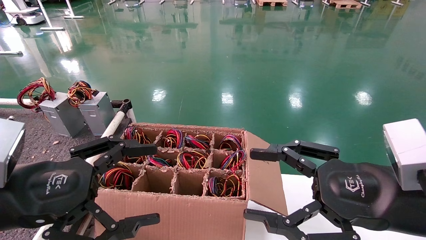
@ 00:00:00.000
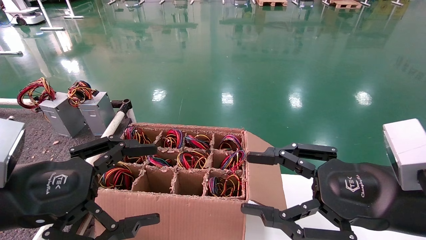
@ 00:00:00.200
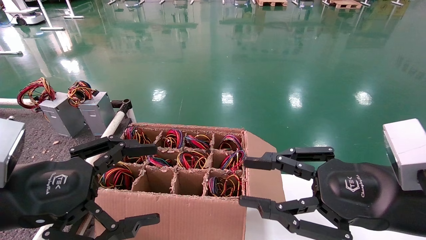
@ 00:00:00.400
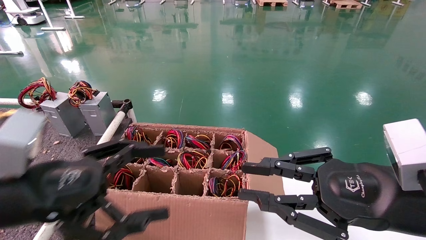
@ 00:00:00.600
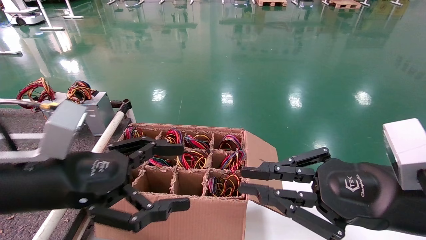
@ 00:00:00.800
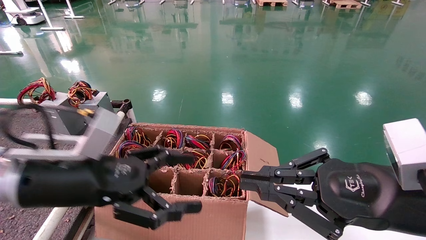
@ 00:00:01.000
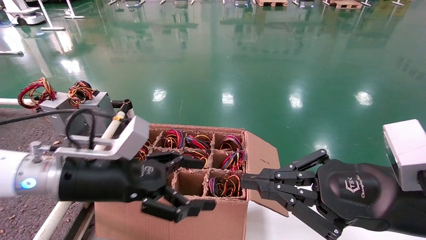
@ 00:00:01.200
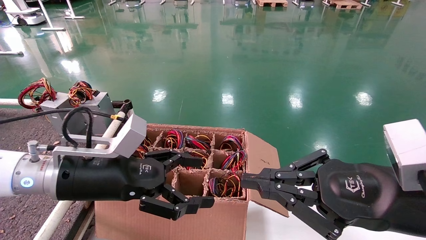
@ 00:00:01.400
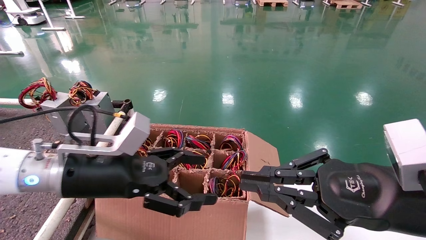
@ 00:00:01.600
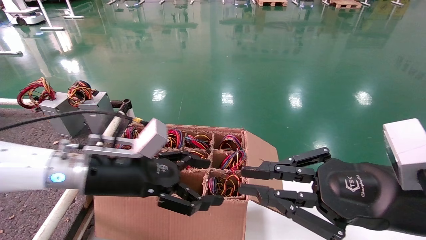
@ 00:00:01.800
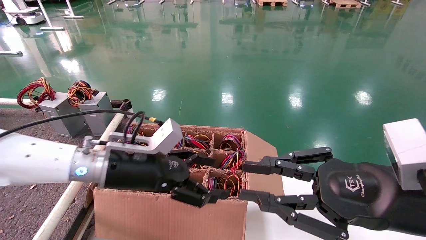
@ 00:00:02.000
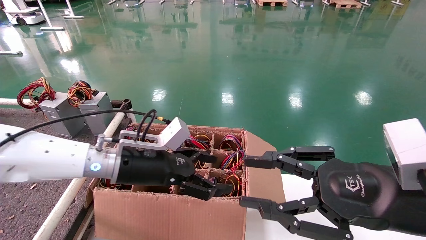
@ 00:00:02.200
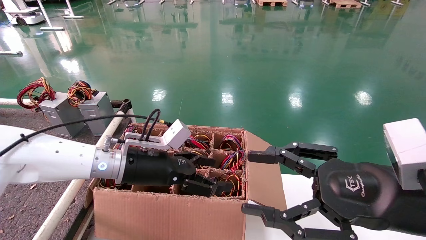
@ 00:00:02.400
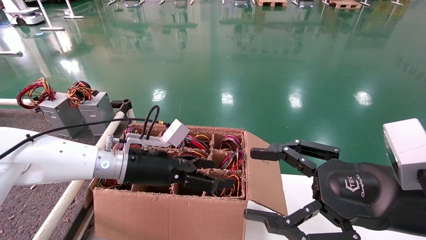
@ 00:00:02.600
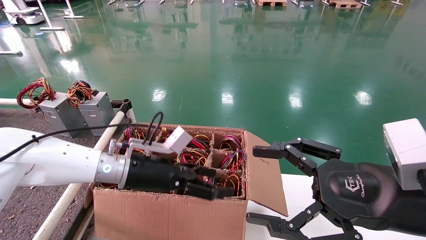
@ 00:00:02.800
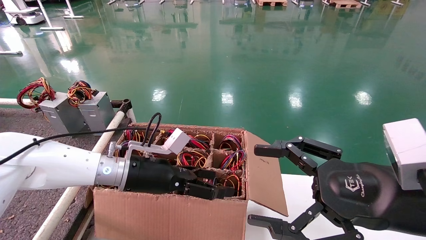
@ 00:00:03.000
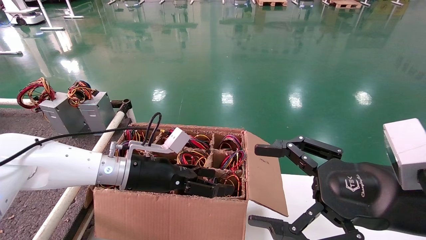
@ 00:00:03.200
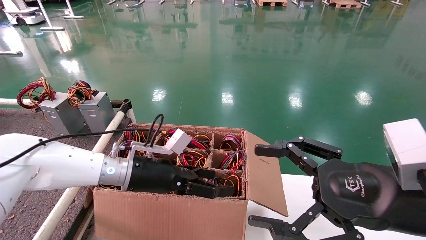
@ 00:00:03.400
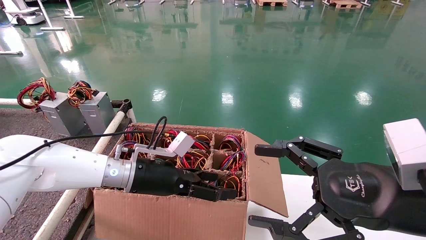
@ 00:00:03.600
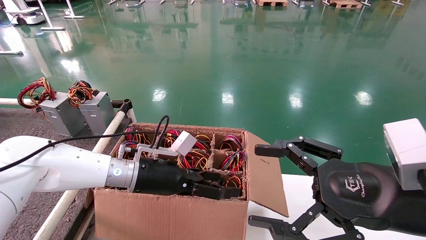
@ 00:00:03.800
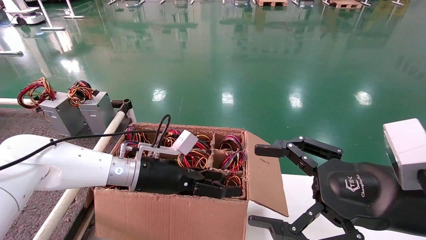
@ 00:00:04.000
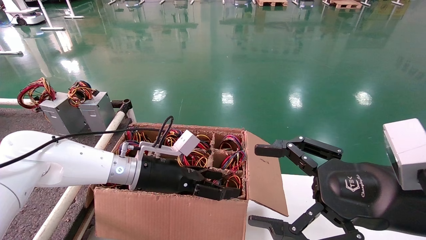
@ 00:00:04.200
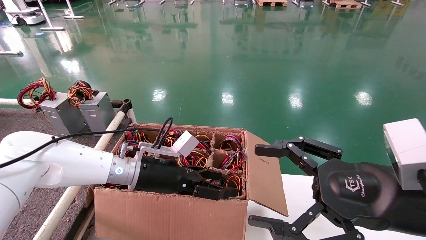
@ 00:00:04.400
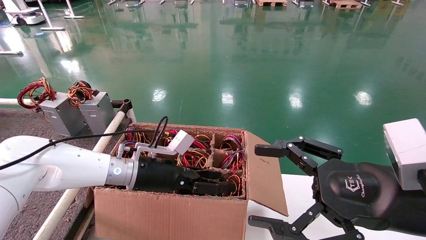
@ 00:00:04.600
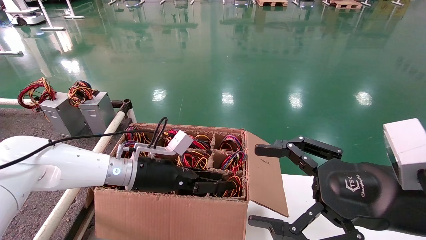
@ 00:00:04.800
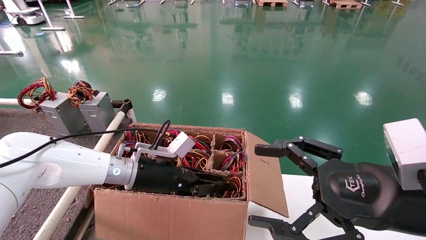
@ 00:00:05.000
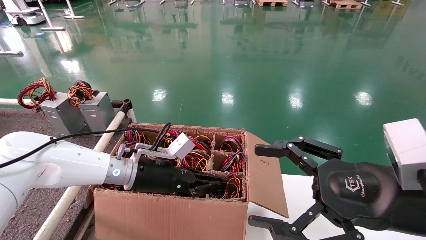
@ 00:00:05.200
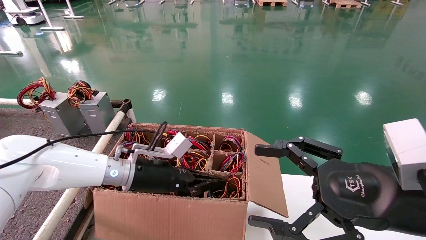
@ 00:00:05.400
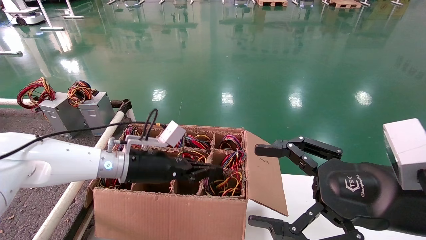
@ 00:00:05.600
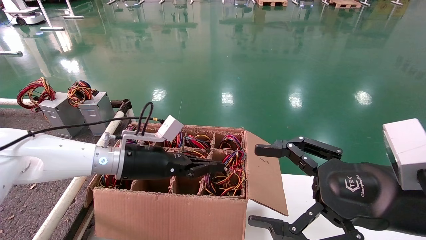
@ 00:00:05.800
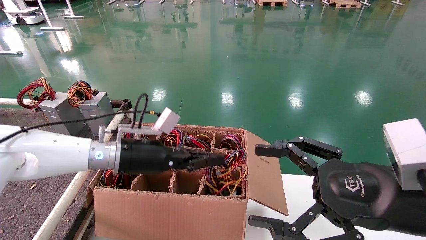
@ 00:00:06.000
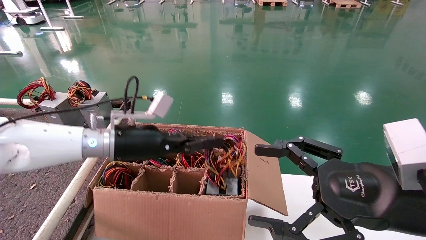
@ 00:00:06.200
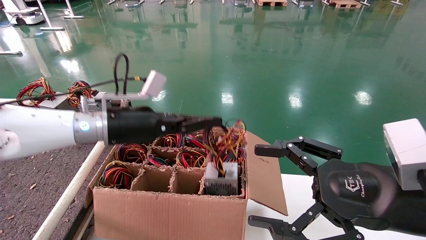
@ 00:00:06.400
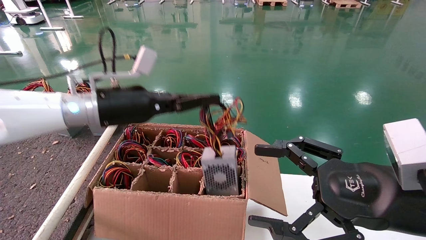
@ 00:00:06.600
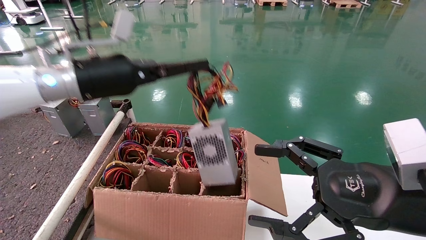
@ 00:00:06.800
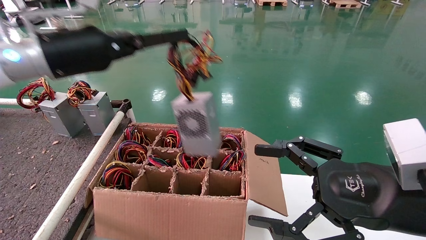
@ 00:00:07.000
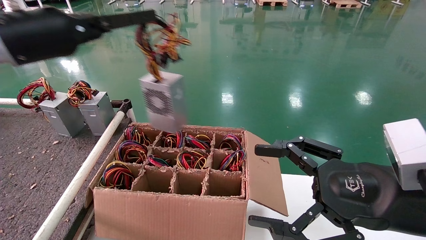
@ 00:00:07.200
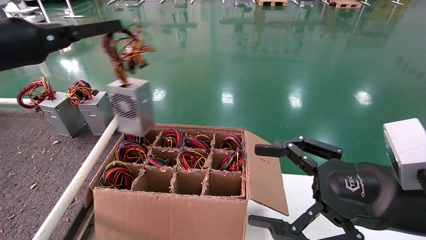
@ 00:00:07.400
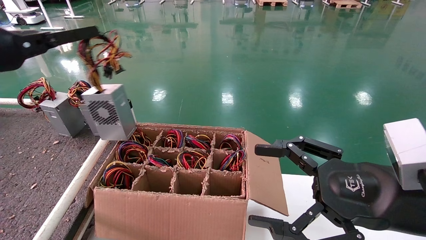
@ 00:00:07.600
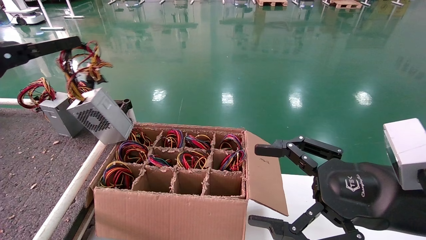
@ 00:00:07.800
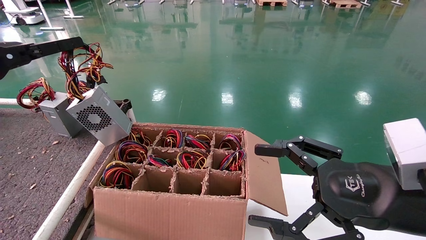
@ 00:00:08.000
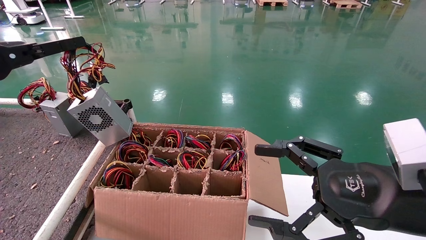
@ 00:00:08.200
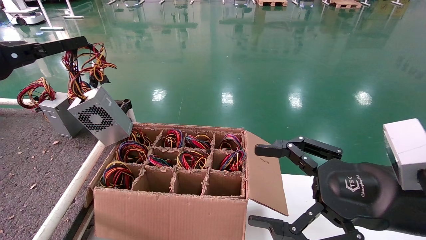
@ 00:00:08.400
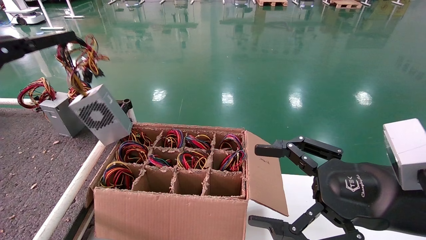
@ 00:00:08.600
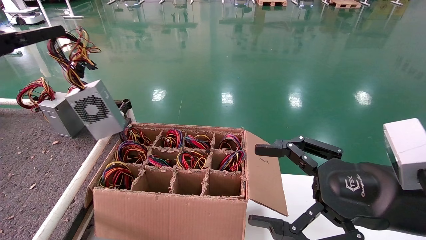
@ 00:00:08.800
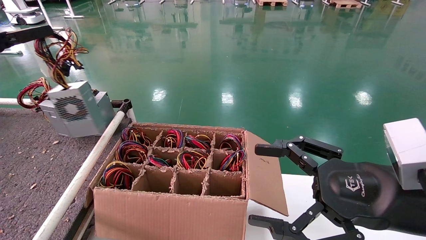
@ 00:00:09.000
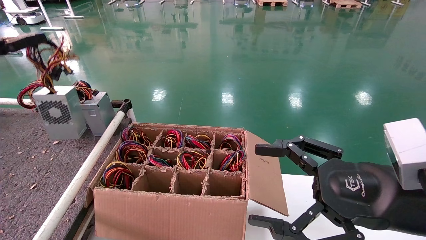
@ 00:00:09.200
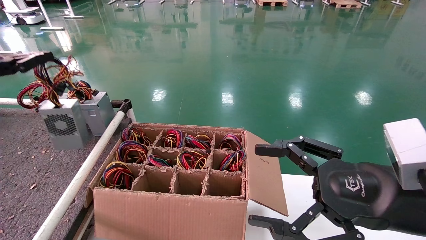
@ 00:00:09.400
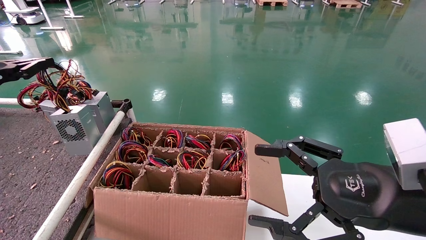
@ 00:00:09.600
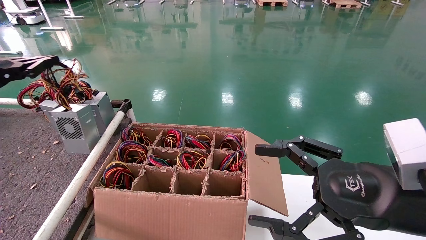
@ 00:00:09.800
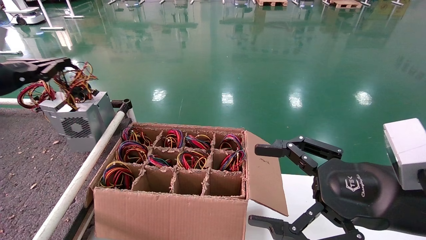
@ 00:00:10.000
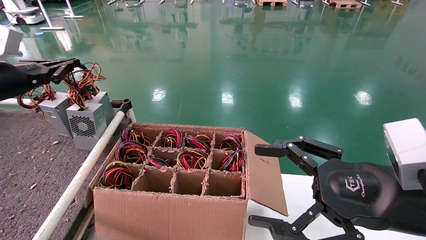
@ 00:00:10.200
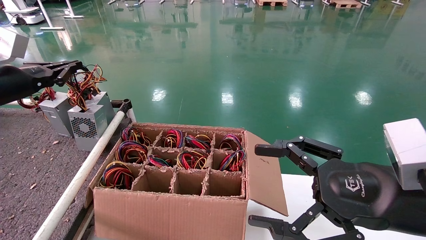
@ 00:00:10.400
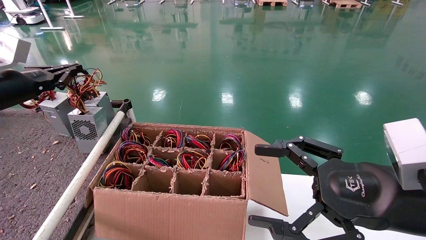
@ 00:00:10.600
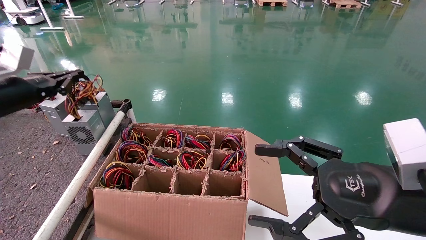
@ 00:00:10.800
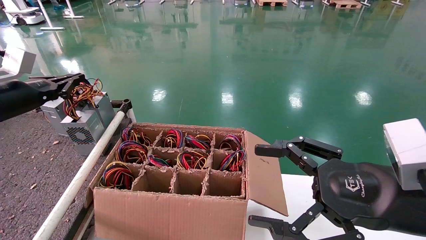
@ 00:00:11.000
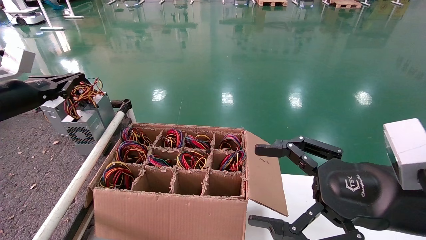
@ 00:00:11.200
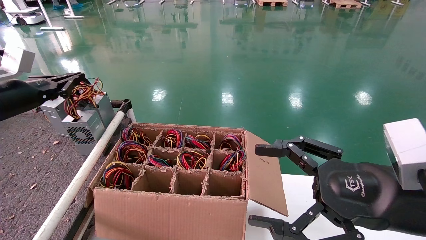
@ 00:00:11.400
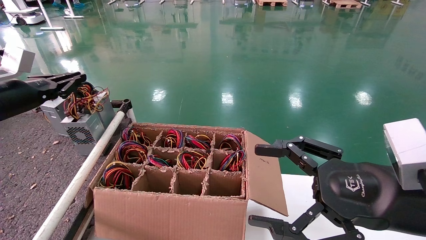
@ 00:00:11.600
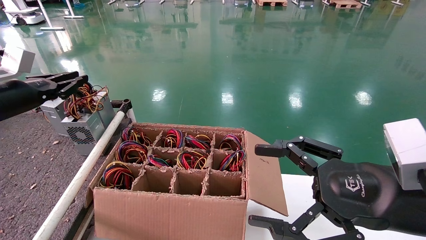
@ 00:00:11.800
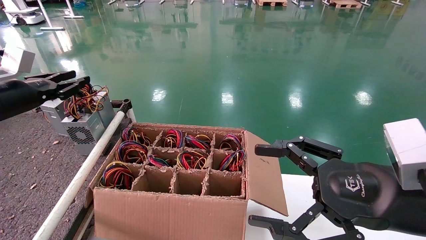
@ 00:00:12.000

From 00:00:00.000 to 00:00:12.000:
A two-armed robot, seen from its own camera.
Step, from 00:00:01.600 to 00:00:05.600: Grab and lift the power supply from the large box.
From 00:00:00.000 to 00:00:01.600: The left gripper goes about 15 cm forward and to the right. Meanwhile the right gripper closes up.
From 00:00:01.600 to 00:00:03.000: The right gripper opens its fingers; the left gripper shifts about 10 cm forward.
From 00:00:03.000 to 00:00:04.400: There are only small adjustments of the grippers.
From 00:00:04.400 to 00:00:06.000: The left gripper travels upward by approximately 5 cm, and closes up.
From 00:00:06.000 to 00:00:07.600: The left gripper moves to the left and upward, some 30 cm.
From 00:00:07.600 to 00:00:09.000: The left gripper travels to the left by about 5 cm.
From 00:00:09.000 to 00:00:10.400: The left gripper shifts about 10 cm downward and forward.
From 00:00:10.400 to 00:00:12.000: The grippers make only small movements.

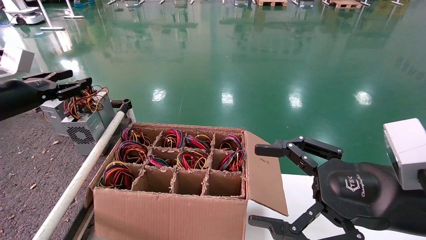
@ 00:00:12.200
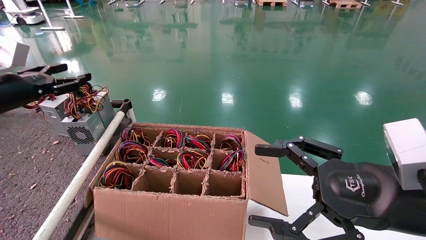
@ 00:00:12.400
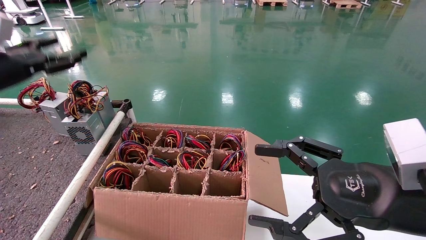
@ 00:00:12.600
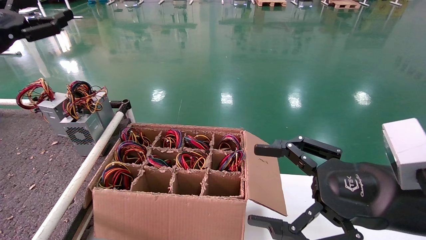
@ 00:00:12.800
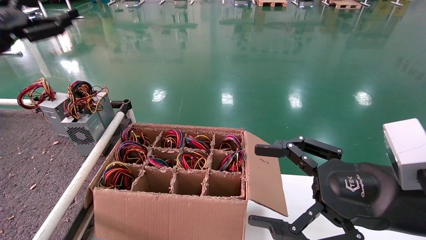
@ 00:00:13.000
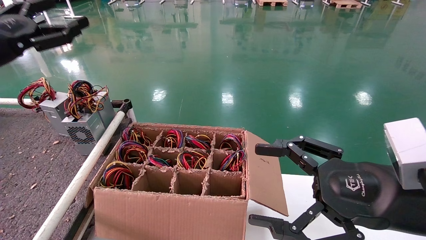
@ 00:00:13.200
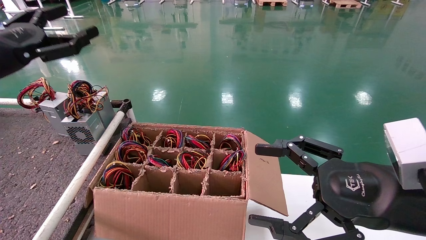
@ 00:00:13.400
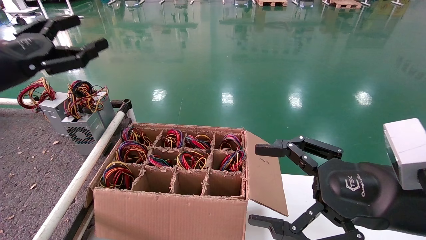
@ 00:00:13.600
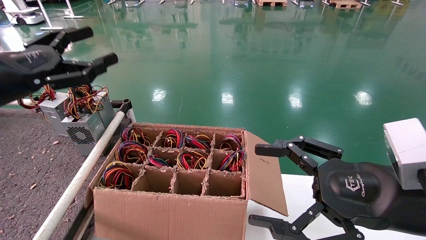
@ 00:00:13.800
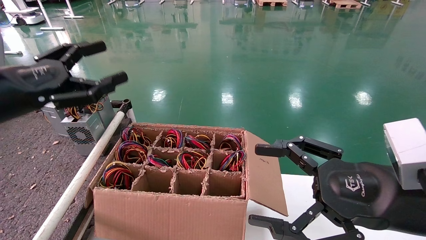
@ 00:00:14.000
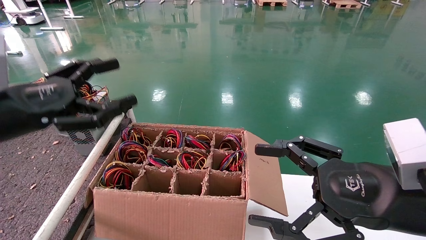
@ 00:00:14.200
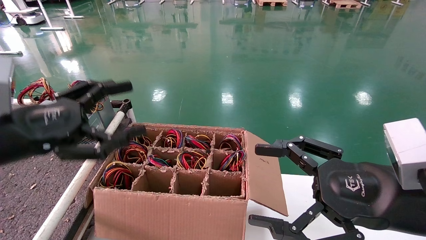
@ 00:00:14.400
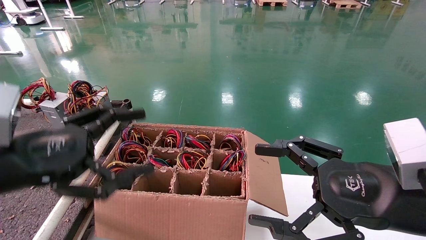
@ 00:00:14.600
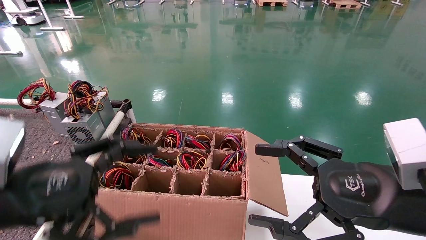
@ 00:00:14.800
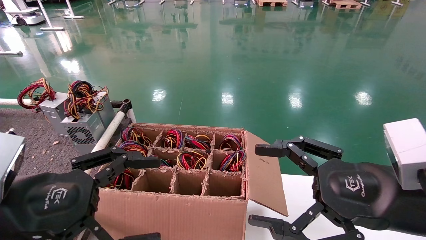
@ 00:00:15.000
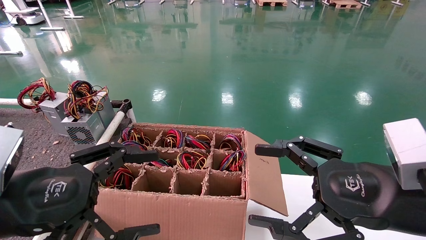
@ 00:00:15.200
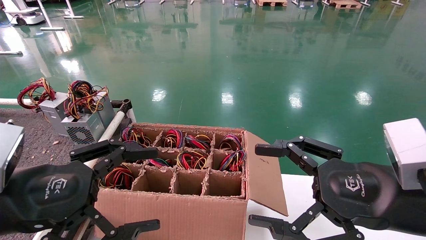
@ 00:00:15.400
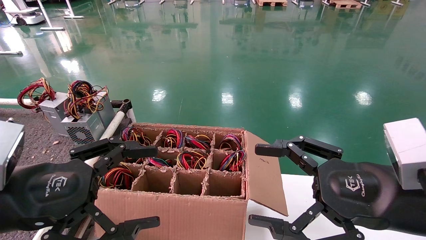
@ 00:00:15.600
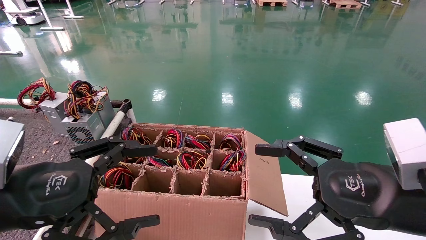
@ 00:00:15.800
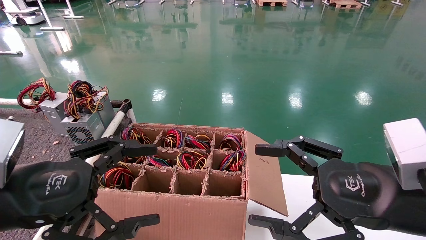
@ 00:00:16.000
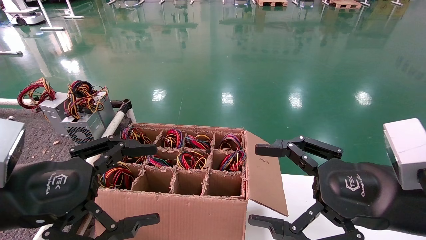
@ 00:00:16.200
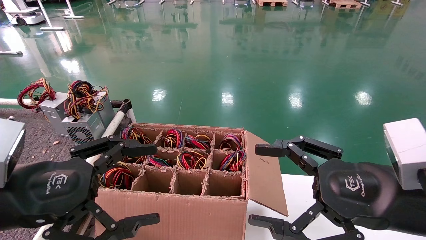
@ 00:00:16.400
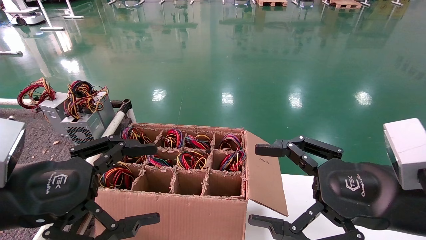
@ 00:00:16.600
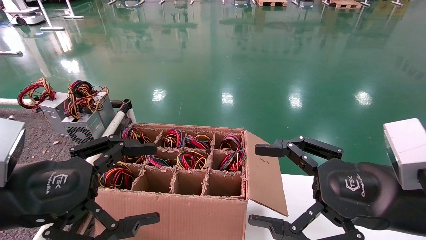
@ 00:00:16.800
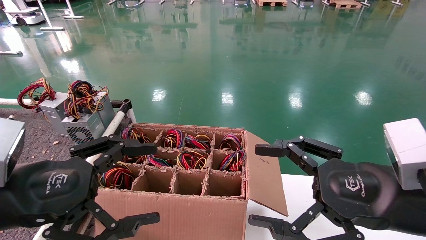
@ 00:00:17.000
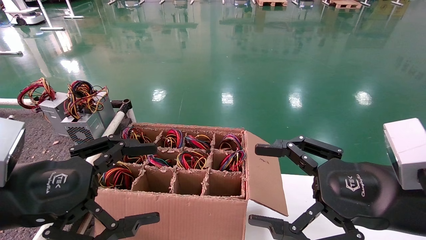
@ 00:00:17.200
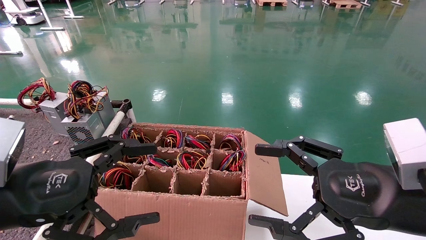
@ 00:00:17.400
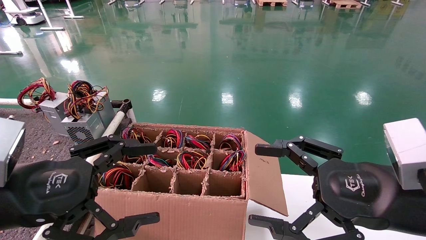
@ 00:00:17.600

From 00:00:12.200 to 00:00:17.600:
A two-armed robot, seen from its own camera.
From 00:00:12.200 to 00:00:13.600: The left gripper goes roughly 10 cm backward and to the right, and opens its fingers.
From 00:00:13.600 to 00:00:15.000: The left gripper goes some 20 cm backward, downward and to the right.
From 00:00:15.000 to 00:00:17.600: The two grippers keep their place.
